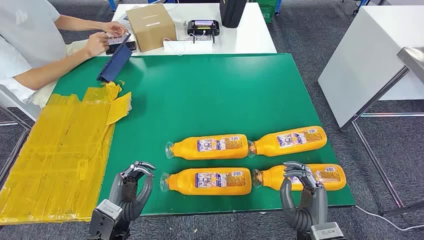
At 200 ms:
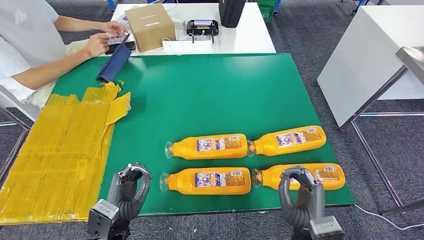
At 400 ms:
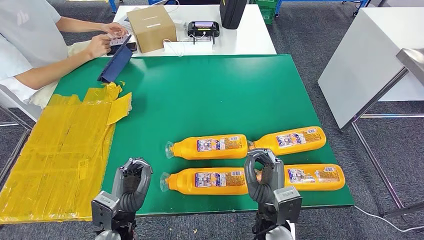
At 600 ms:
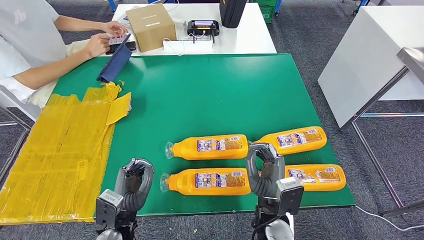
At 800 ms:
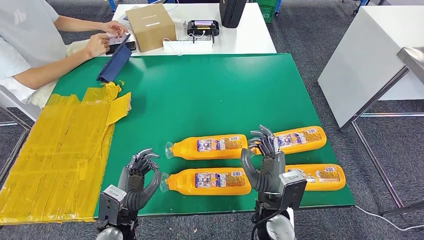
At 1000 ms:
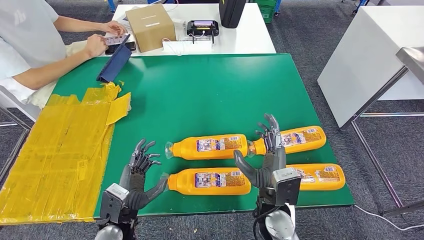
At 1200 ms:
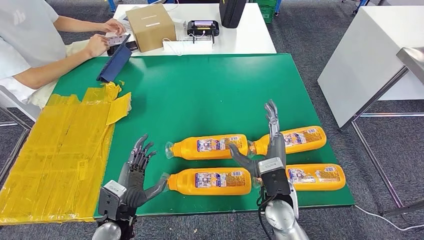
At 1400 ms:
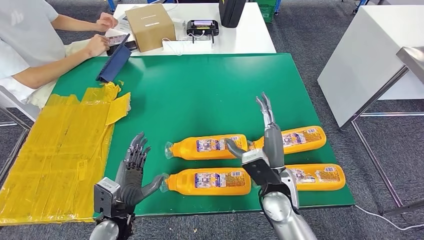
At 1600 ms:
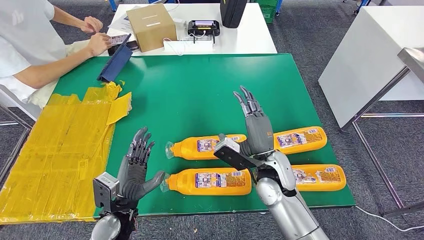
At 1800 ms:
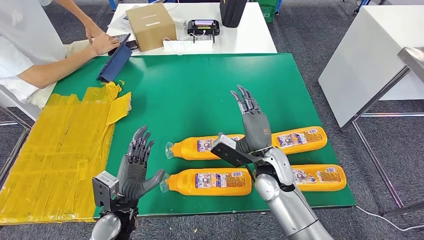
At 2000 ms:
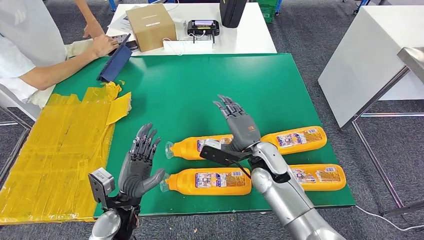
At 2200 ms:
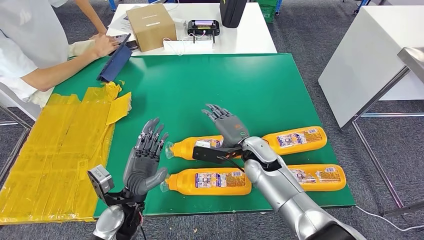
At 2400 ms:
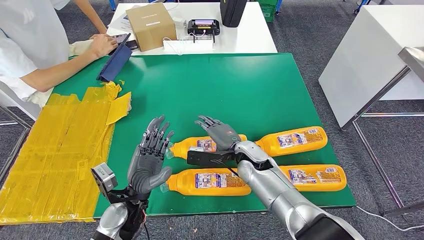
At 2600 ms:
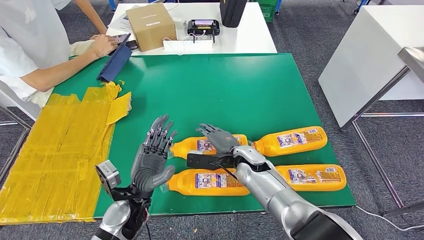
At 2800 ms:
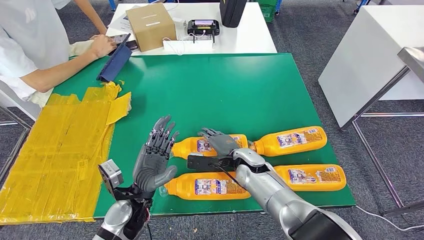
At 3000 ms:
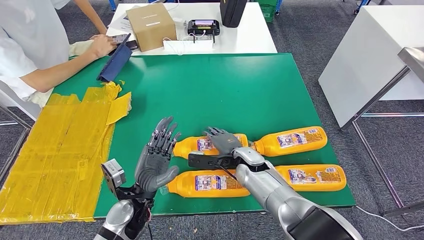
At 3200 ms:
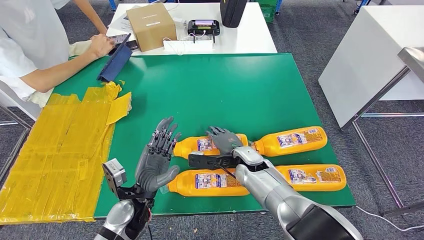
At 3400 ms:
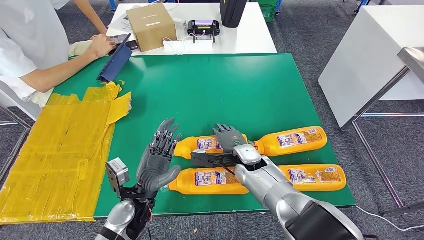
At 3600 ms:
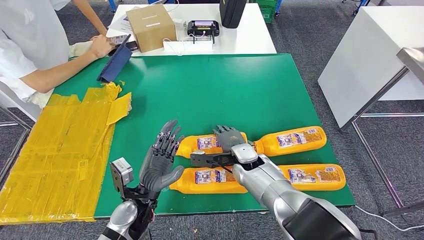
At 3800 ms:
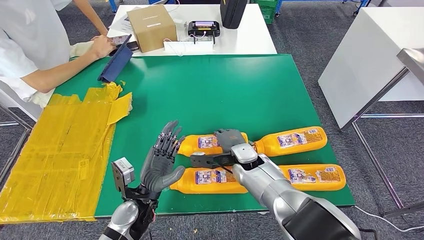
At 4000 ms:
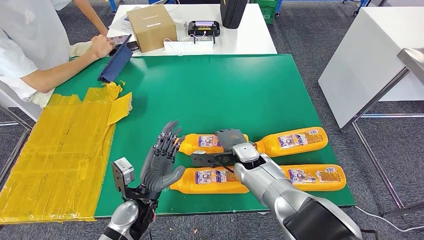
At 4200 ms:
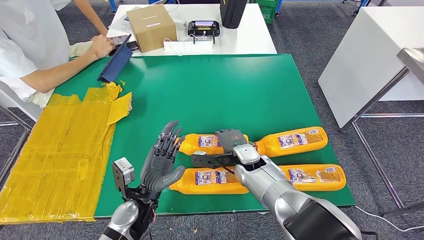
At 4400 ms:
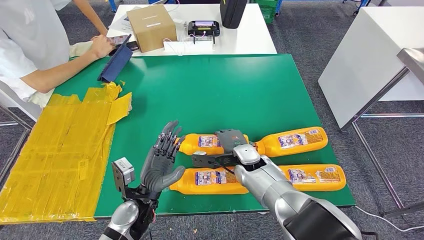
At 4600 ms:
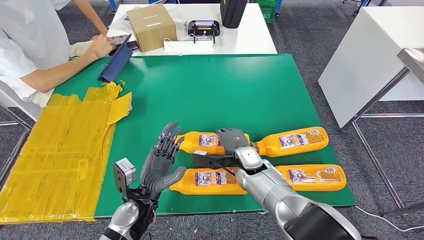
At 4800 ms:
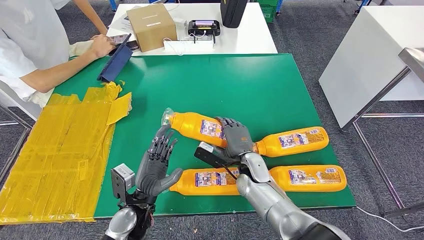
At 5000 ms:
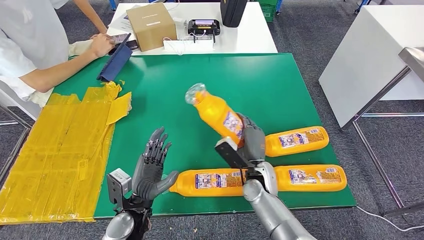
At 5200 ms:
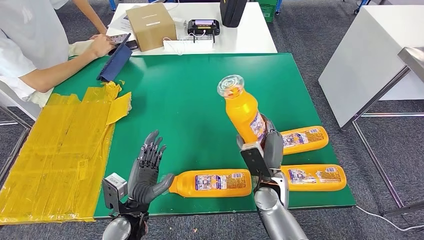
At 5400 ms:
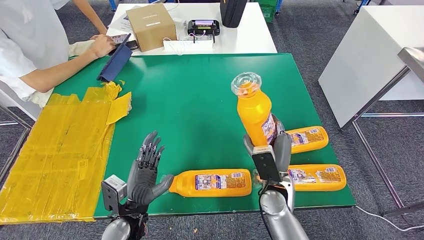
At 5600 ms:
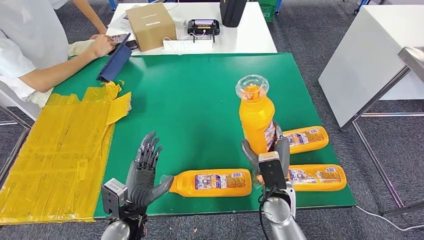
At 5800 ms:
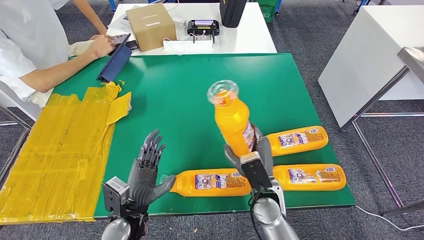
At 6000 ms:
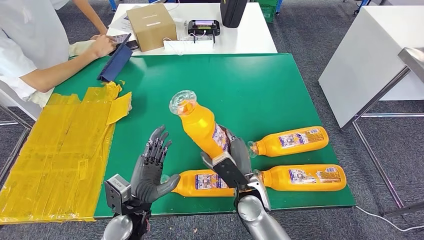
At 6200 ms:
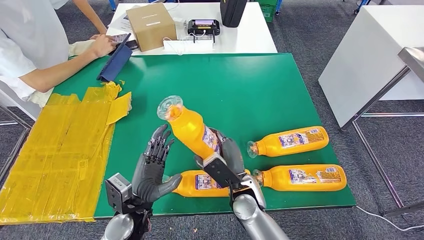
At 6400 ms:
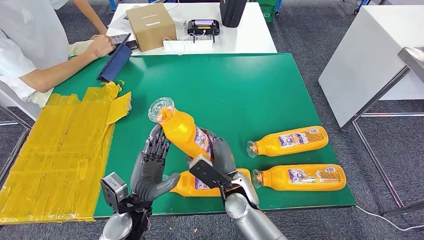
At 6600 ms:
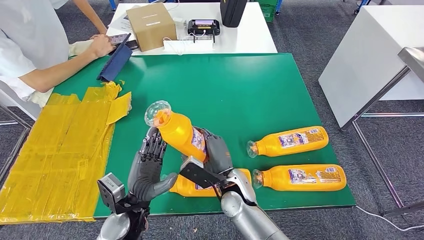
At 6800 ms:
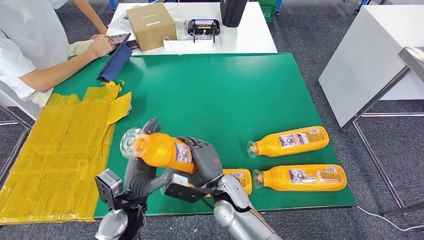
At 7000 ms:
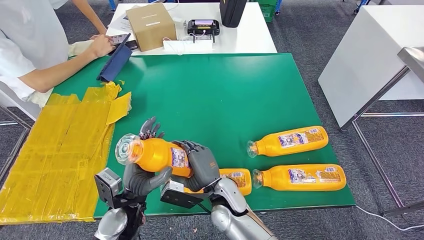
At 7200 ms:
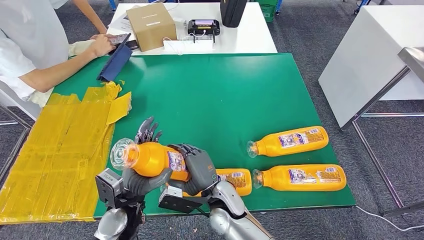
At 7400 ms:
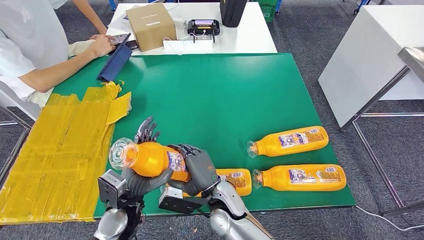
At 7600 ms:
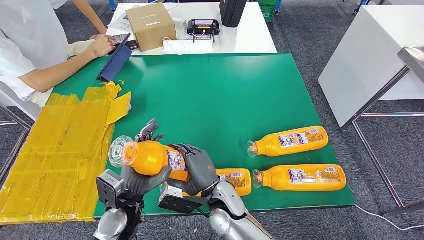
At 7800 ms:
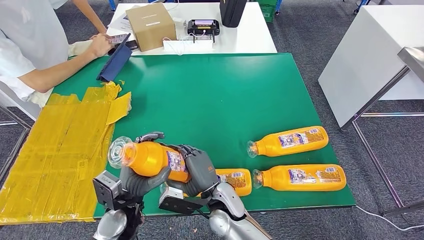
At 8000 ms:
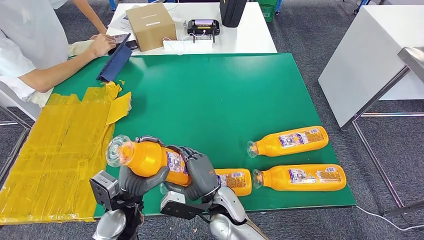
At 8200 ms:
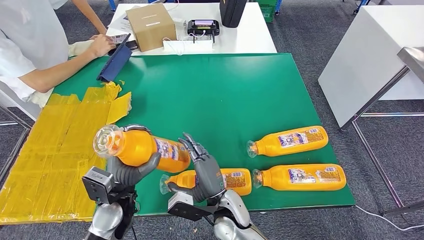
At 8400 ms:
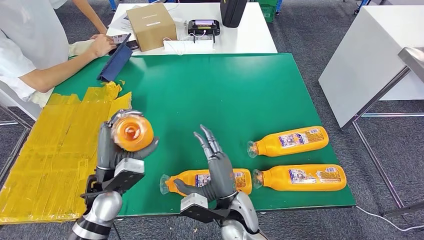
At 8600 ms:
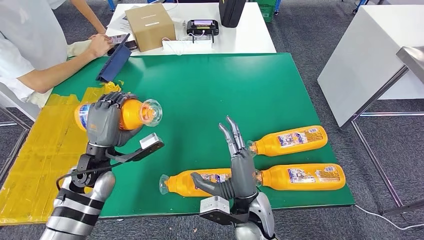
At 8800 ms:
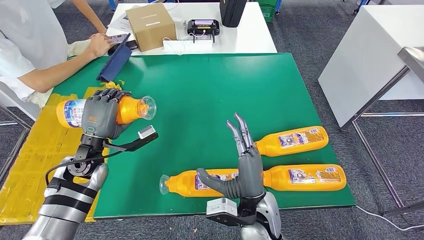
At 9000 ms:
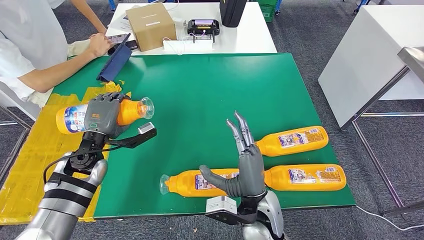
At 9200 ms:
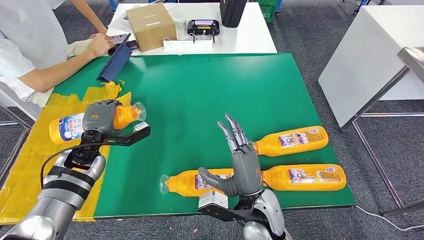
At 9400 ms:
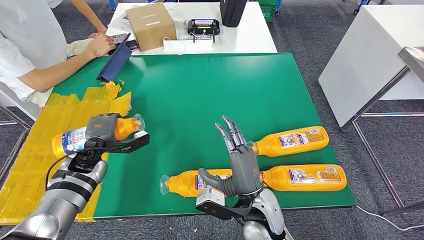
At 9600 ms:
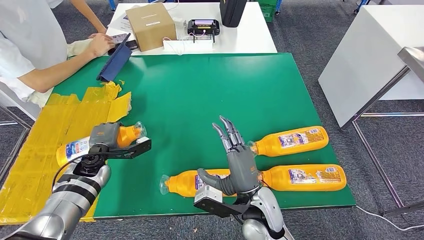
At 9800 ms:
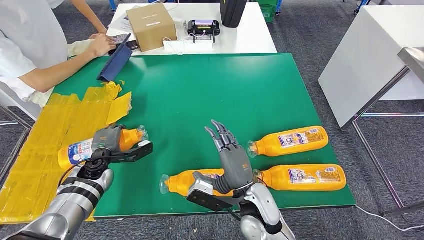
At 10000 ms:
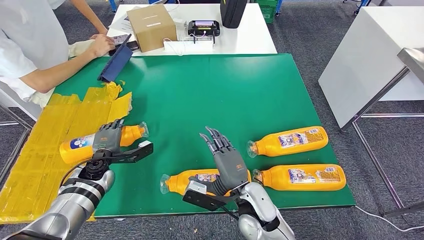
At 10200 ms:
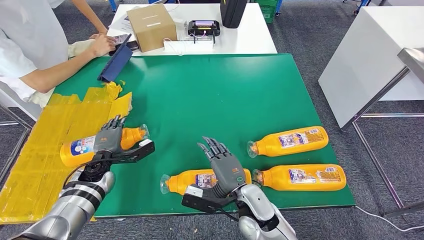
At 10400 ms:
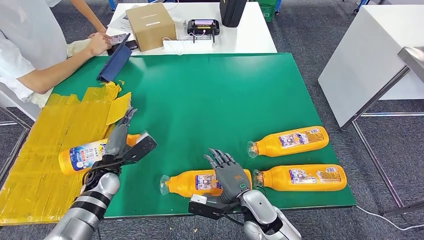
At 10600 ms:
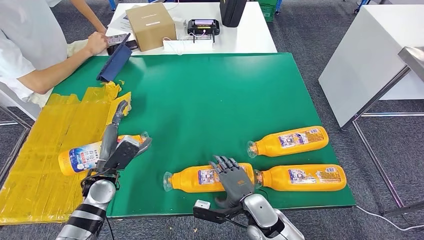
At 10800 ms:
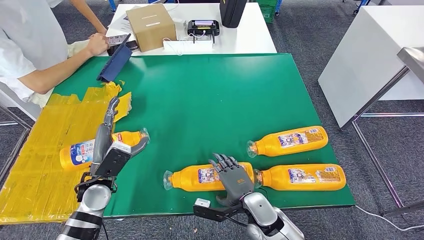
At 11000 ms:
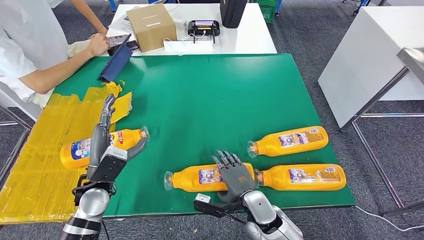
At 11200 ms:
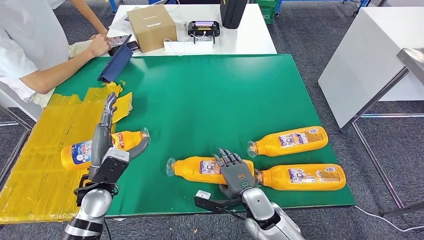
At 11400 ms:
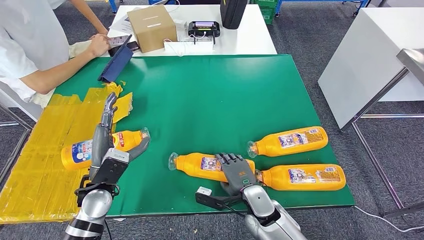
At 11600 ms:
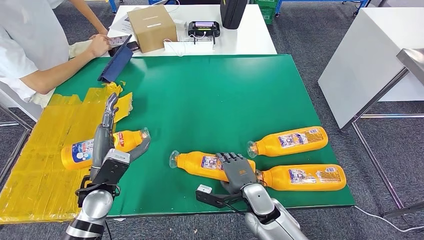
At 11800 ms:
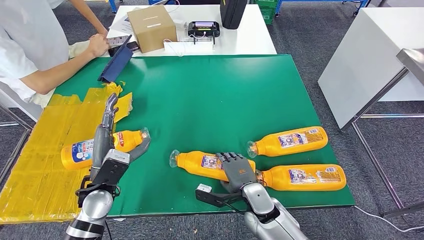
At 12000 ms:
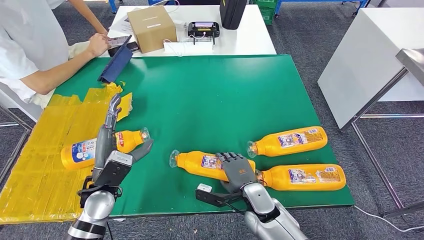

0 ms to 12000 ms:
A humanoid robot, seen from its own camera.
Step, 0 ms to 6600 ms: Take the bottle from the table.
Step, 6800 ms to 9800 ms: Flip the bottle to face forward.
1600 ms to 3000 ms: The left hand changes place by some 5 cm. The right hand travels downward and forward by some 10 cm.
4400 ms to 6000 ms: The right hand goes roughly 10 cm backward.
6000 ms to 7600 ms: The right hand travels to the left by roughly 10 cm.
7600 ms to 9000 ms: The left hand shifts approximately 15 cm forward, to the left and upward. Meanwhile the right hand heads to the right and upward, covering roughly 10 cm.
9000 ms to 10400 ms: Both hands move downward, approximately 10 cm.
10400 ms to 12000 ms: The right hand shifts by approximately 5 cm, while the left hand moves backward and upward, about 10 cm.

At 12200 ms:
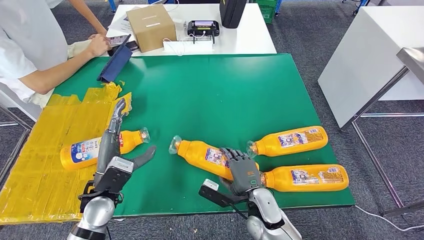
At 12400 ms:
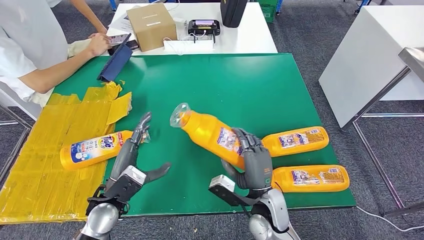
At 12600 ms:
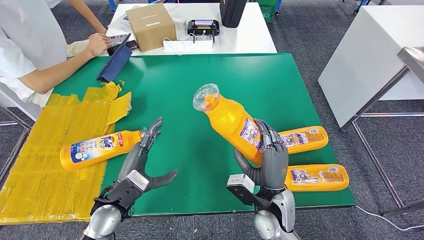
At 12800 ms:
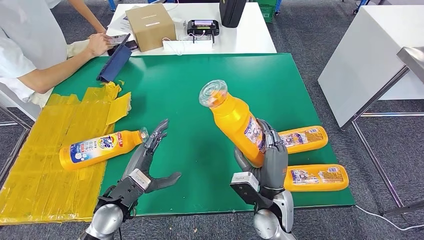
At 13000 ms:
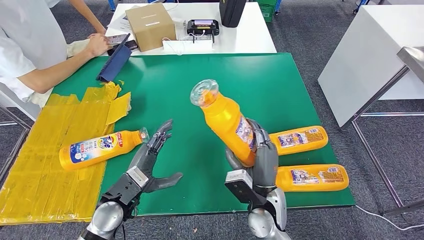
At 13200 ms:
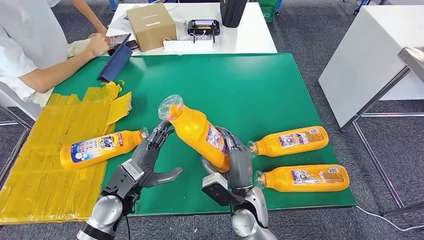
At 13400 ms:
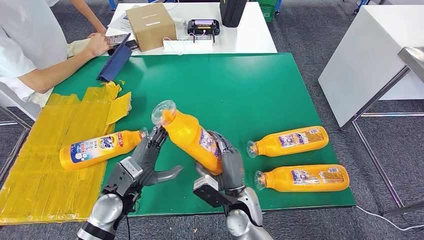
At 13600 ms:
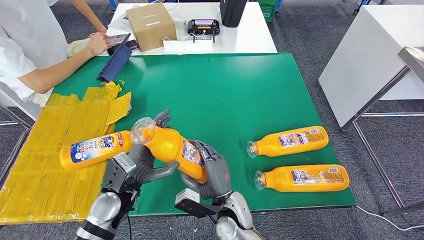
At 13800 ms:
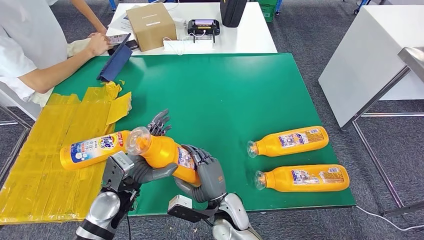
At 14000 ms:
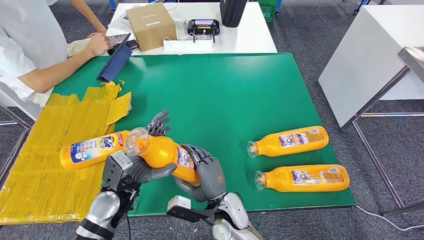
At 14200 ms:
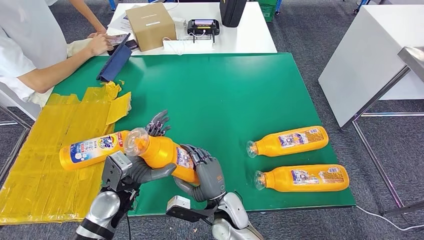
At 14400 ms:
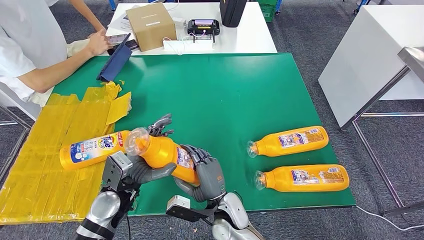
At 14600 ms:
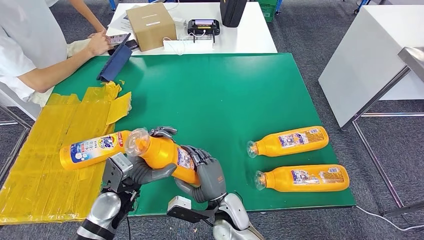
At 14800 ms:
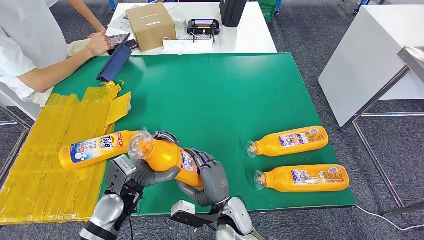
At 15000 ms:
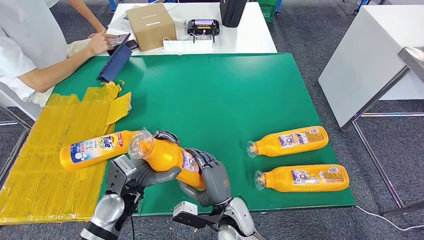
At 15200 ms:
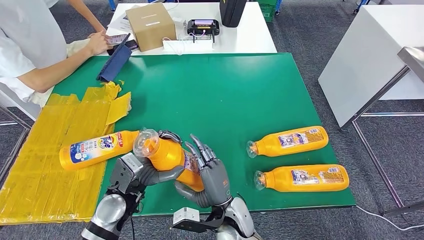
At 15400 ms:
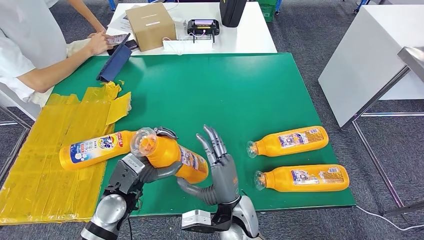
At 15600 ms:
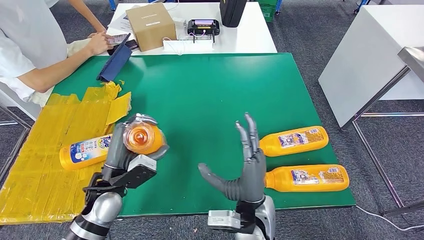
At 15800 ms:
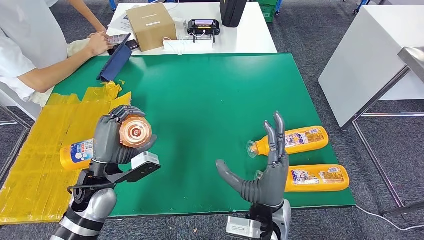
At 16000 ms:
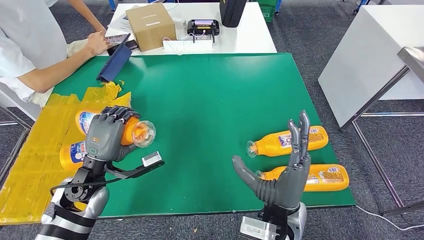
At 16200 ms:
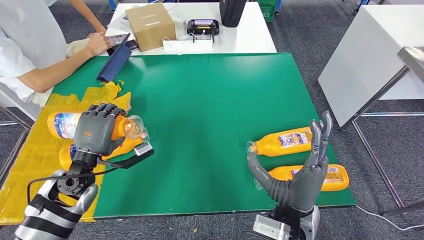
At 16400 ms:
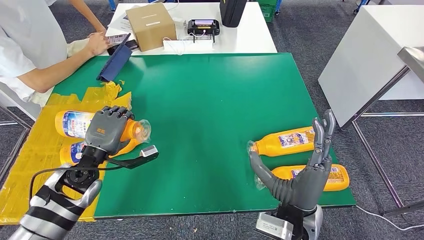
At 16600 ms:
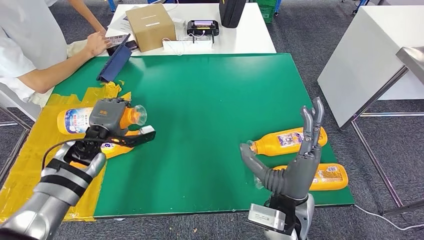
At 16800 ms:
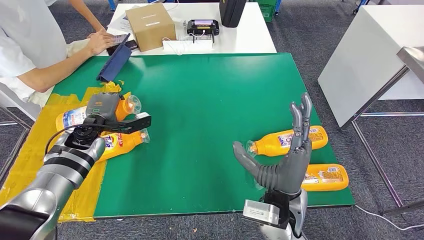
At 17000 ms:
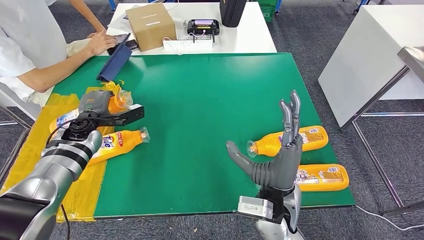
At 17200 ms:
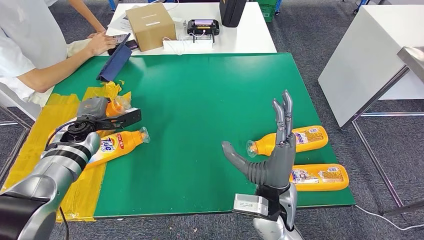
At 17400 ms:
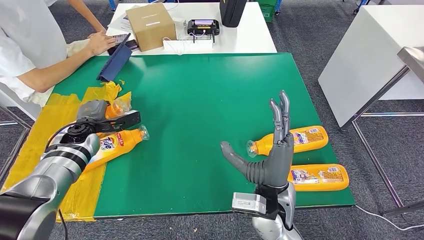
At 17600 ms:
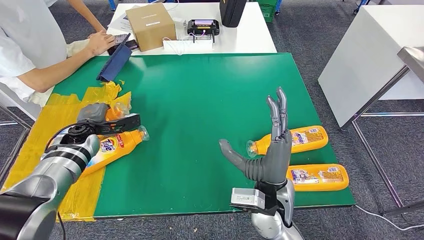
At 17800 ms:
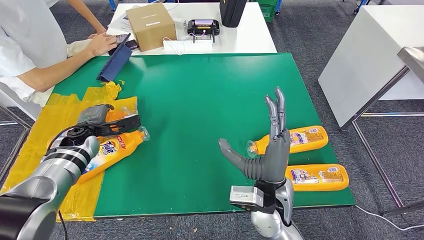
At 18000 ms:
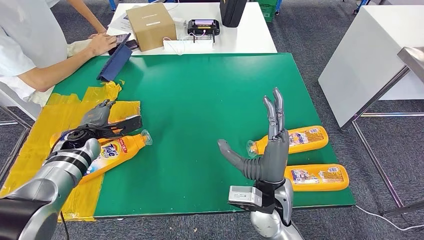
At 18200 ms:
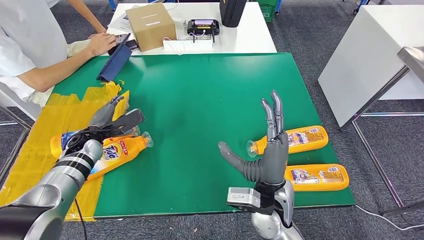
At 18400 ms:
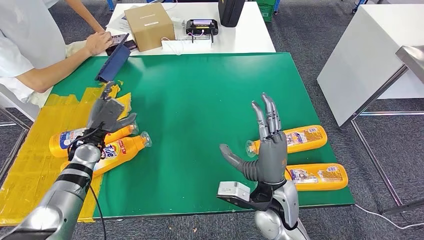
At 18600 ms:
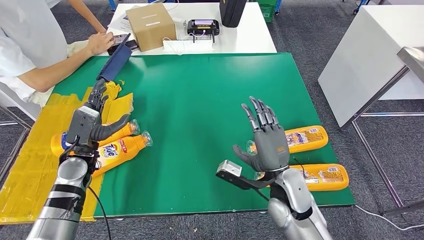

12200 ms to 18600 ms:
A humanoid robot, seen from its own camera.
Step, 12200 ms to 15200 ms: Pick up the bottle from the table.
Step, 15400 ms to 18600 ms: Flip the bottle to face forward.
12200 ms to 13800 ms: The right hand shifts some 10 cm to the left.
13800 ms to 15400 ms: The right hand ends up some 5 cm from where it was.
15400 ms to 17000 ms: The right hand shifts roughly 10 cm upward and to the right. Meanwhile the left hand travels forward and to the left by approximately 20 cm.
17000 ms to 18600 ms: The right hand changes place by approximately 5 cm. The left hand heads backward, covering some 10 cm.
